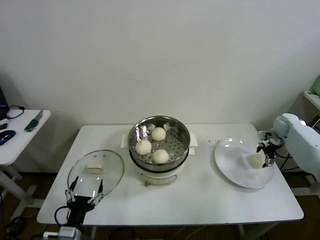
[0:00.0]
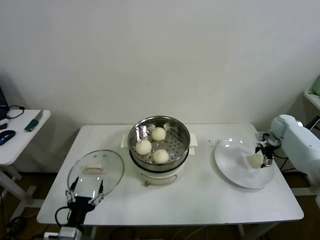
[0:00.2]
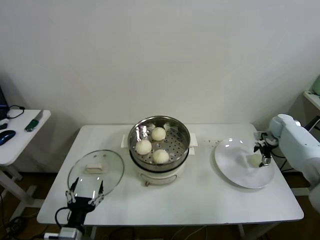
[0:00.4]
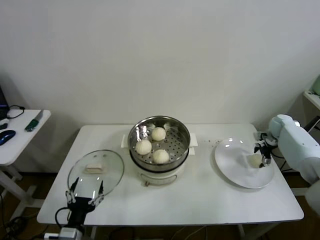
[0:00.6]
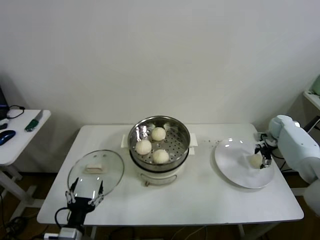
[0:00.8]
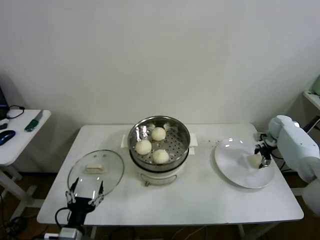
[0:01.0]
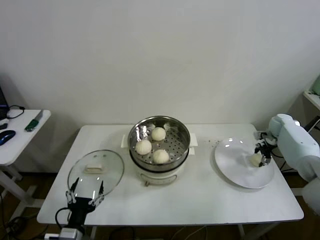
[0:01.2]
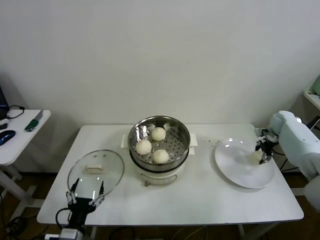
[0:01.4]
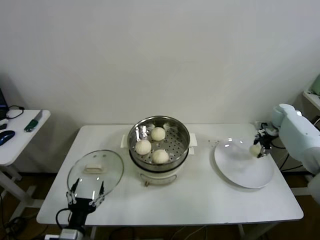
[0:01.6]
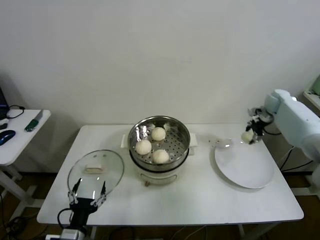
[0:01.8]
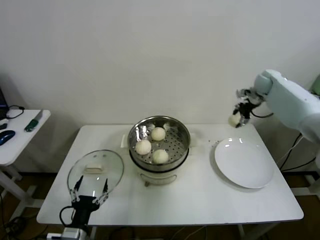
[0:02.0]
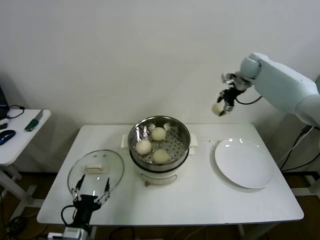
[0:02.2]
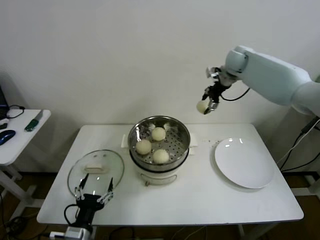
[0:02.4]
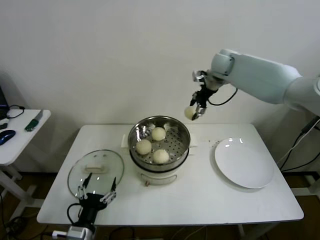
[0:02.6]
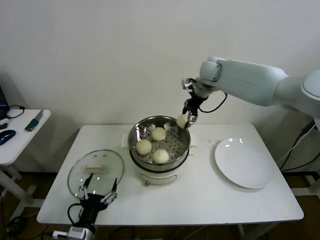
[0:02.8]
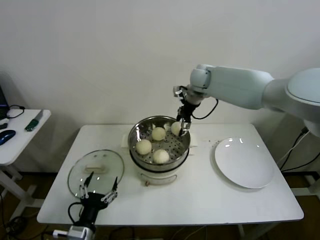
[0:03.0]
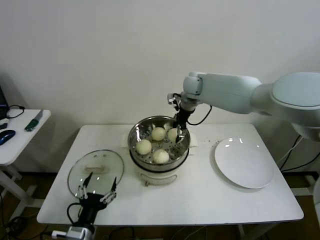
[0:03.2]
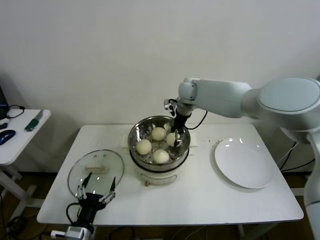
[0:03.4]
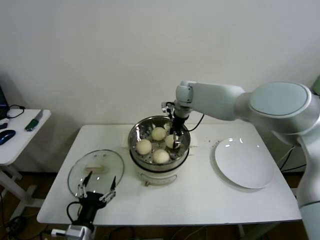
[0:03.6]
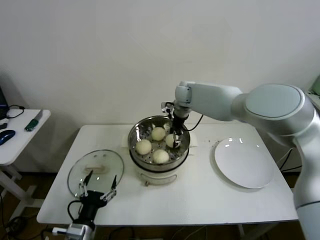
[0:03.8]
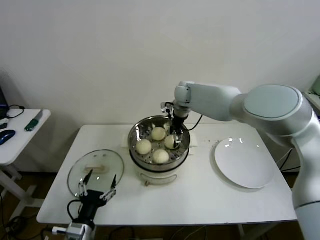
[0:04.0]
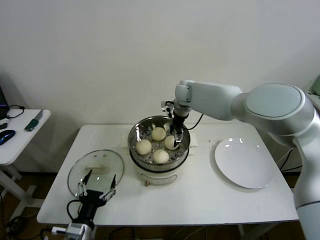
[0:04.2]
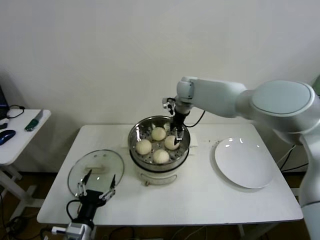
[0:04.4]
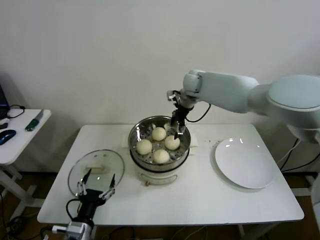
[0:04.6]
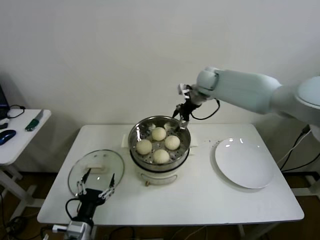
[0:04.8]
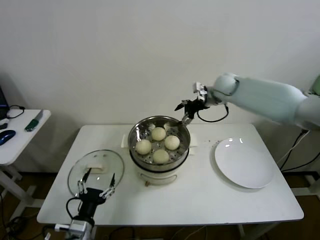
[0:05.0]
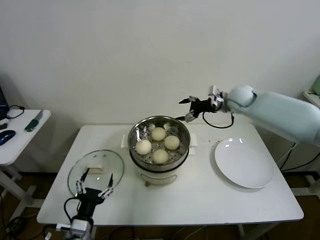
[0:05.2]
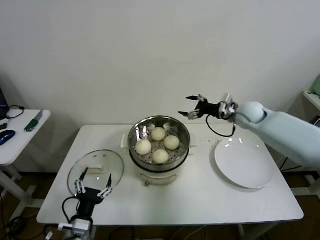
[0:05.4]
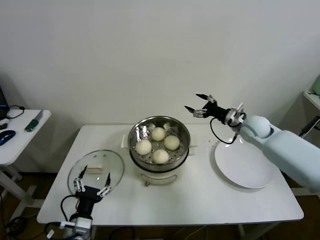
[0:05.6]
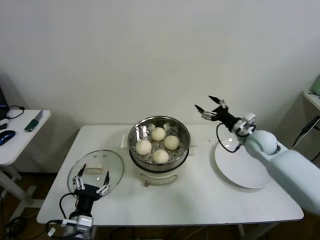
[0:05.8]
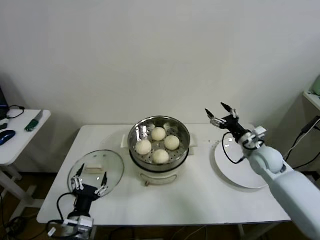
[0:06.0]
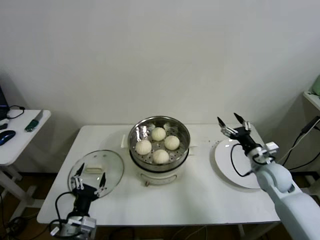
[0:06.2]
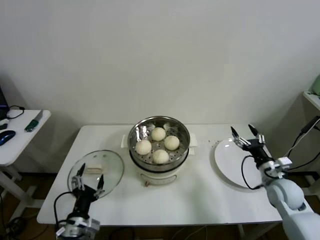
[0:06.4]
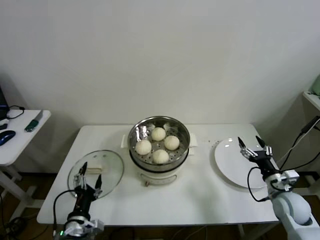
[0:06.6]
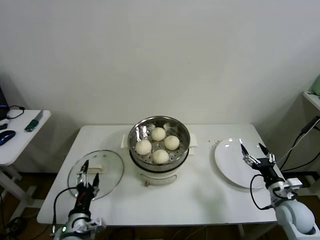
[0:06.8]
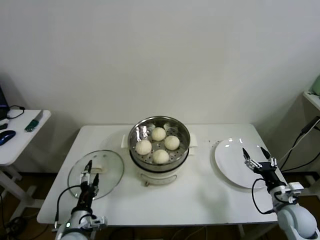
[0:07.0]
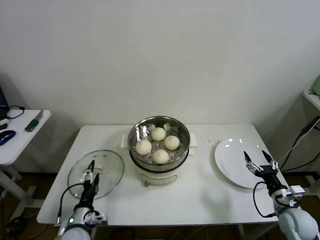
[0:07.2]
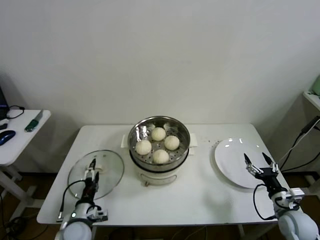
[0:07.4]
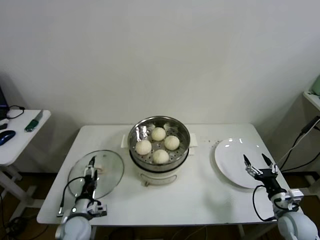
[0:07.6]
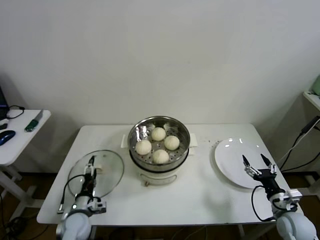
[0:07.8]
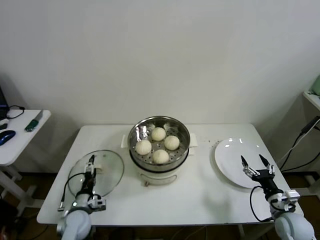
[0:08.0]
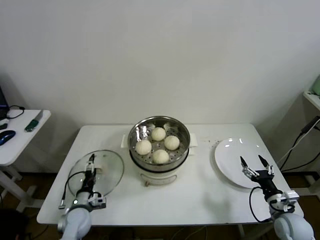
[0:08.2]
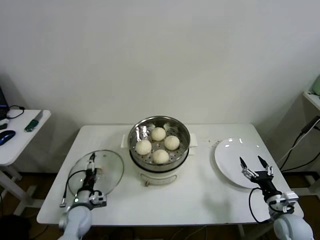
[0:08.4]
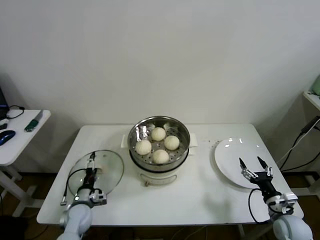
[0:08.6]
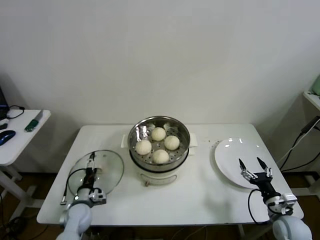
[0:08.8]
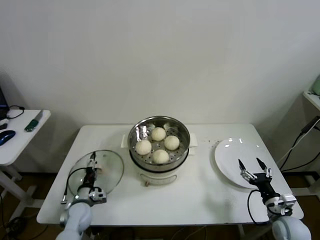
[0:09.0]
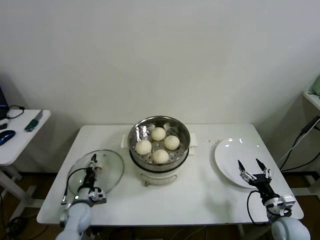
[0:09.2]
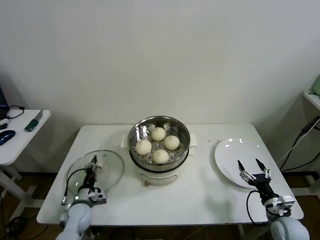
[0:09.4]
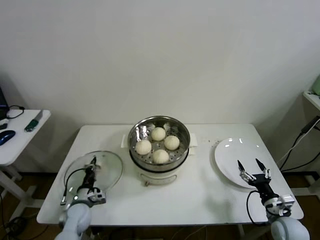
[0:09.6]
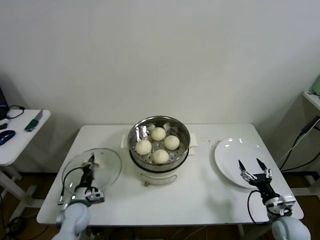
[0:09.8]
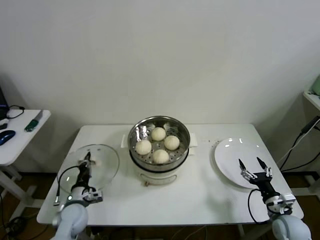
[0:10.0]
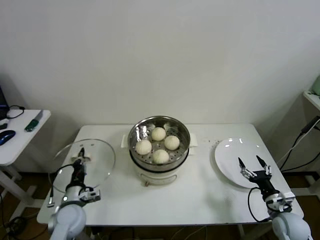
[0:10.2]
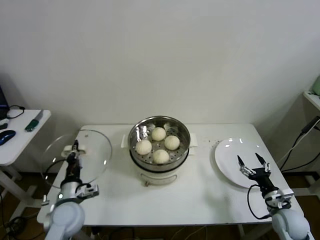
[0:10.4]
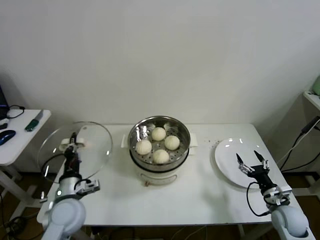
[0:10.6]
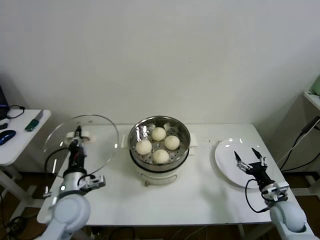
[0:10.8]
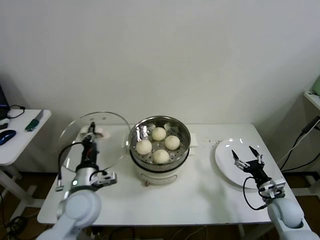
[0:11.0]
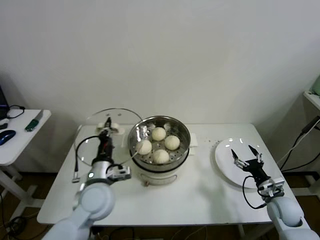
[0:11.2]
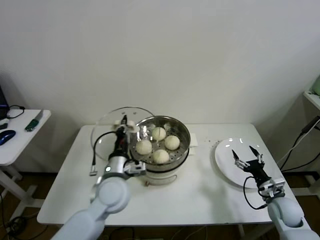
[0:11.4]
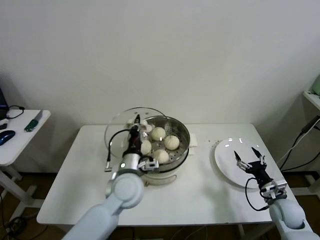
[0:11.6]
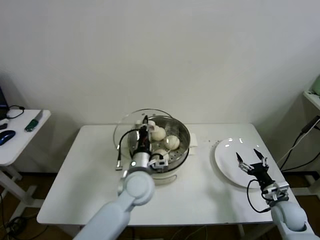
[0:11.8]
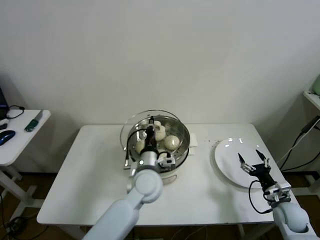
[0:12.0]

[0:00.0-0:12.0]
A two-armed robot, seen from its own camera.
Step, 0:01.2 to 0:03.8: Place the baozi on the steamer with right gripper.
Step, 0:04.0 to 0:09.4: Grasp the pot lid with left gripper.
0:00.0 to 0:01.6: The right gripper closes.
0:01.6 to 0:03.0: The right gripper travels to the left and upward by some 40 cm.
0:03.0 to 0:04.4: The right gripper heads downward, covering approximately 5 cm, and opens.
0:04.4 to 0:06.0: The right gripper goes some 35 cm to the right, backward and downward.
0:06.0 to 0:07.6: The right gripper goes about 20 cm backward and downward. The left gripper moves downward and forward, approximately 10 cm.
0:07.6 to 0:09.0: The left gripper is displaced forward by approximately 5 cm.
0:09.0 to 0:10.4: The left gripper shifts some 10 cm upward, and closes its fingers.
0:10.4 to 0:12.0: The left gripper heads to the right, covering approximately 25 cm.

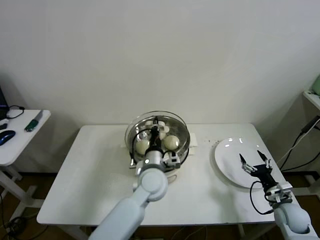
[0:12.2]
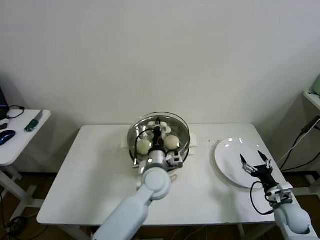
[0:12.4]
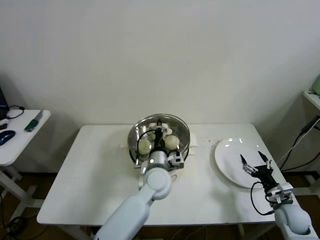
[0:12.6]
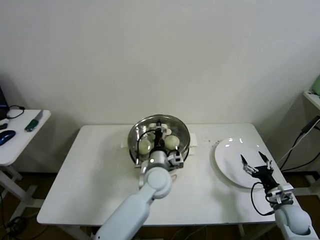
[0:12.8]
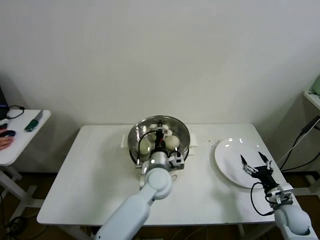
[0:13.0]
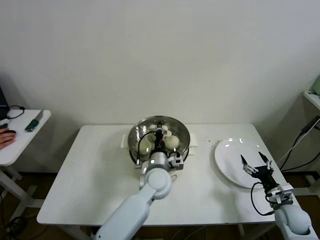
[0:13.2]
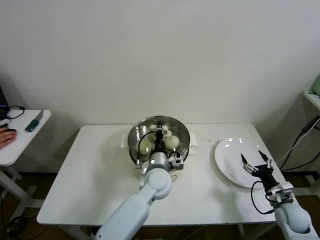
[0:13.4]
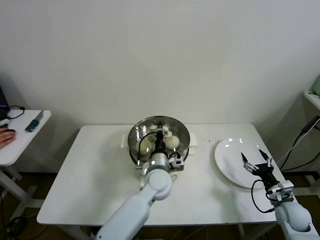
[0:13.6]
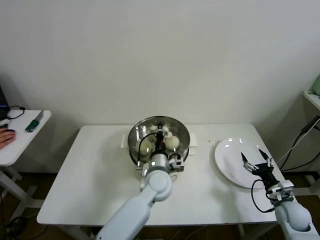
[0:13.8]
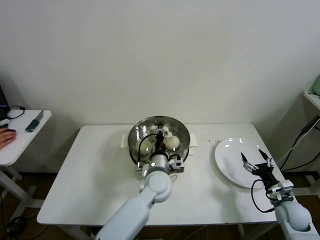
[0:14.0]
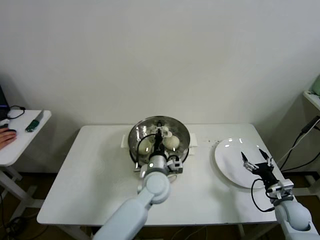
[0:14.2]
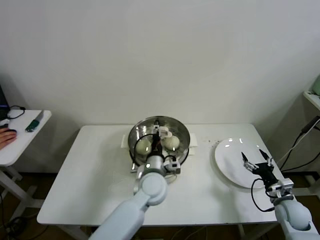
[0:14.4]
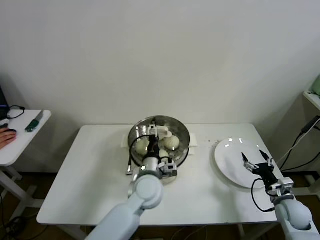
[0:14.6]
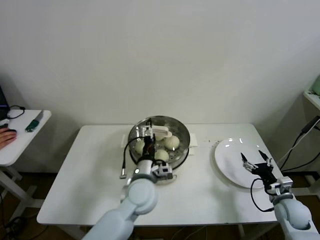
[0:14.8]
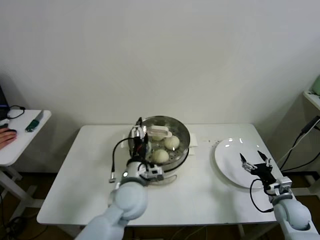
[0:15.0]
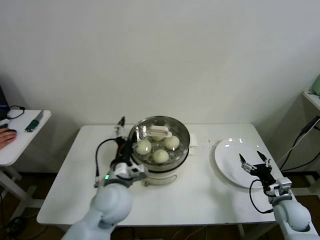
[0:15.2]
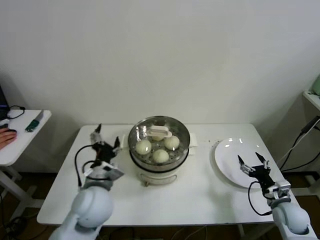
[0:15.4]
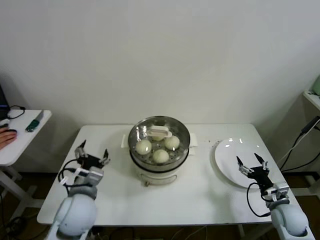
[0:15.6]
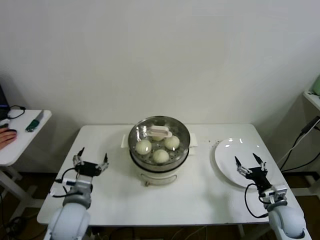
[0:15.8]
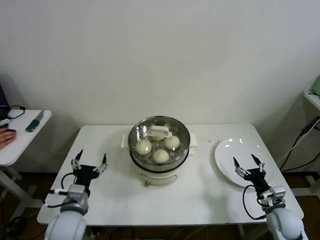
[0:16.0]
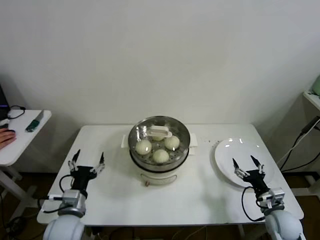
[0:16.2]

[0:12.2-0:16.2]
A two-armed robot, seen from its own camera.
Step, 0:12.2 to 0:14.4: Place the pot lid on the steamer with left gripper.
0:12.2 to 0:13.6: The grippers move only a little.
0:13.6 to 0:14.8: The left gripper shifts by approximately 5 cm, and opens its fingers.
0:14.8 to 0:16.2: The left gripper goes approximately 25 cm to the left and backward. Meanwhile the right gripper ends up about 5 cm from where it was.
